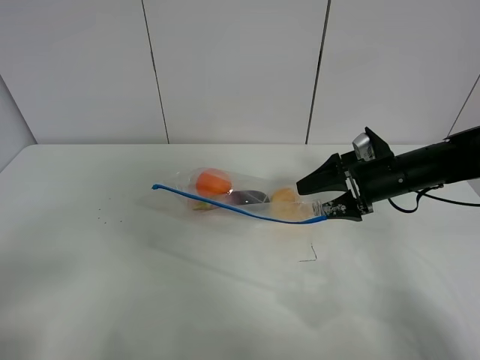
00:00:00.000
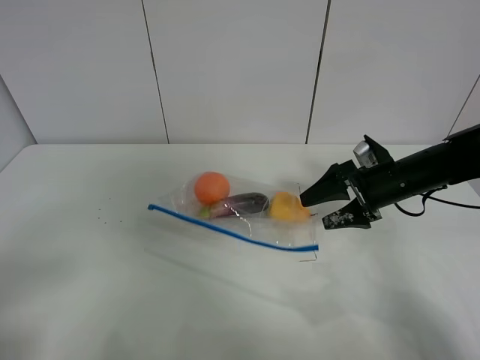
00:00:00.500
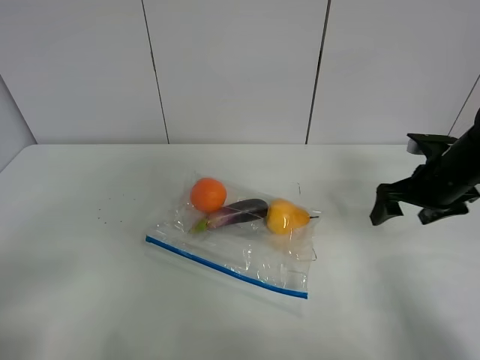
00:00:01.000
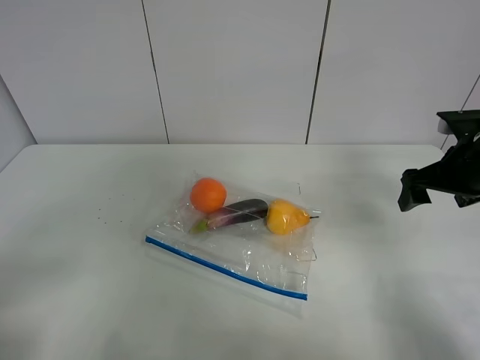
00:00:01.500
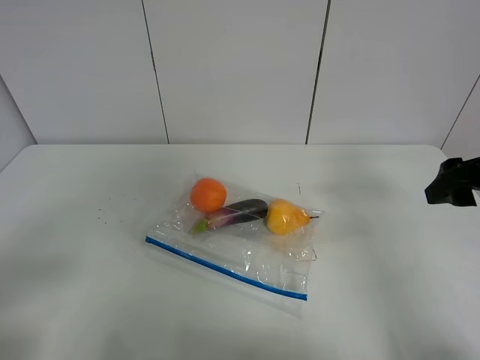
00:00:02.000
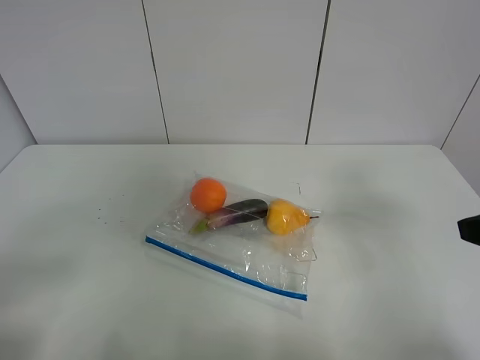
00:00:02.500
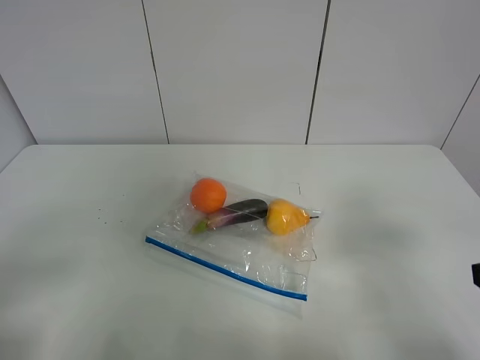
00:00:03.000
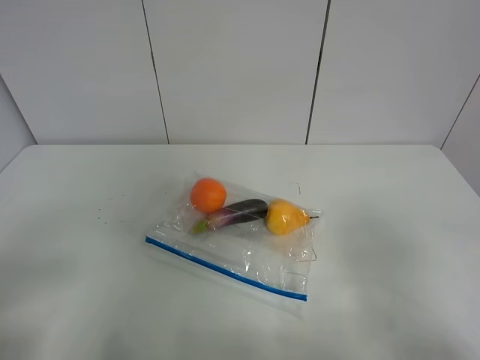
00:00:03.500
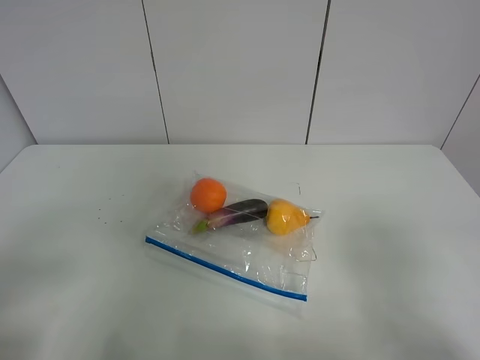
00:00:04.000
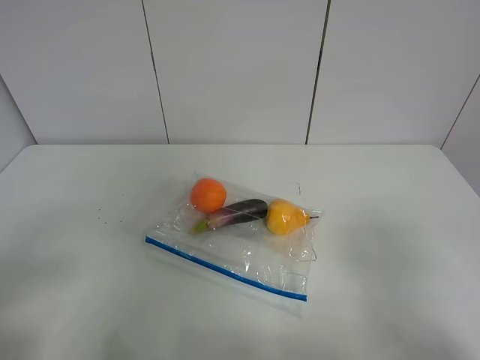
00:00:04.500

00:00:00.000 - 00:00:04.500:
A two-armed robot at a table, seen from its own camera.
00:00:00.000 - 00:00:02.000: The right gripper travels upward, backward and to the right by roughly 20 cm.
00:00:02.000 - 00:00:04.500: The right gripper travels backward by roughly 20 cm.
